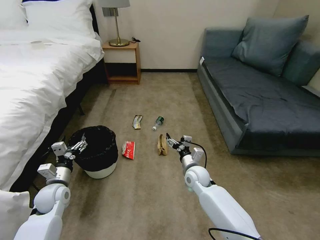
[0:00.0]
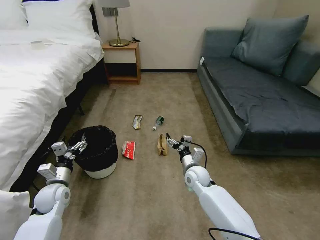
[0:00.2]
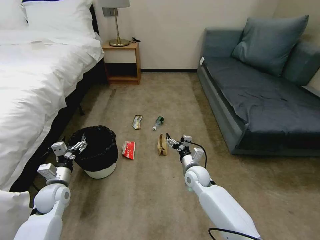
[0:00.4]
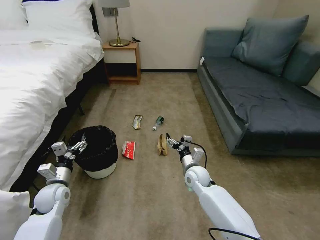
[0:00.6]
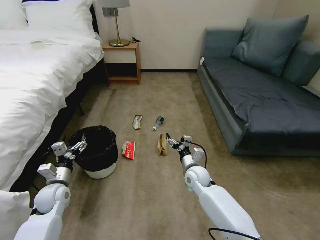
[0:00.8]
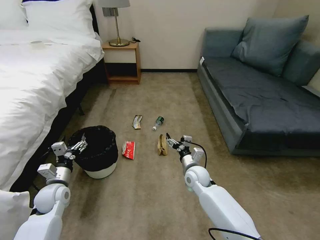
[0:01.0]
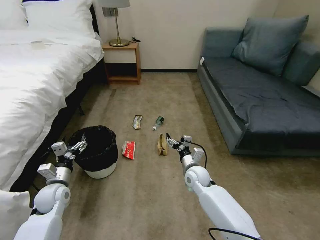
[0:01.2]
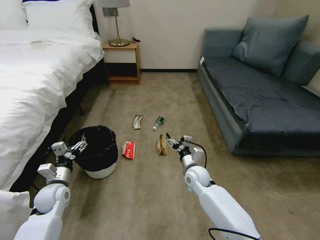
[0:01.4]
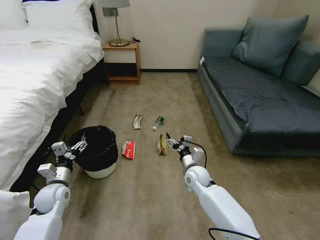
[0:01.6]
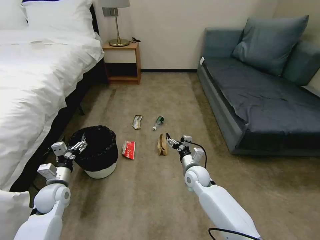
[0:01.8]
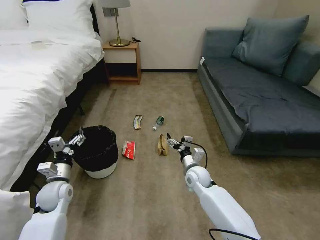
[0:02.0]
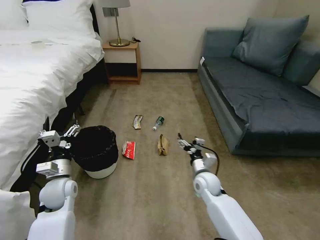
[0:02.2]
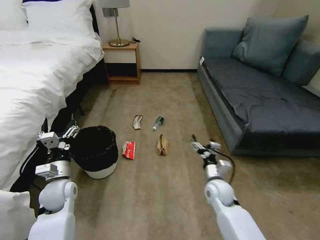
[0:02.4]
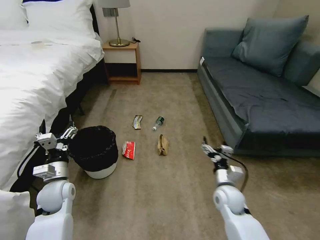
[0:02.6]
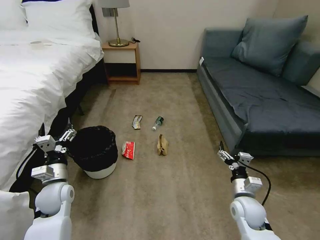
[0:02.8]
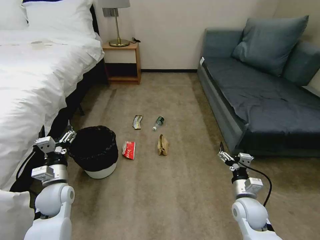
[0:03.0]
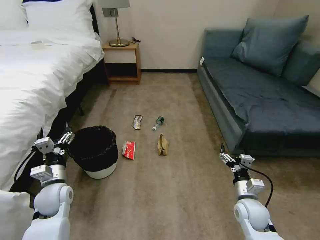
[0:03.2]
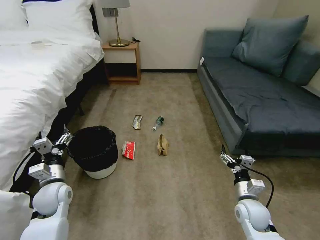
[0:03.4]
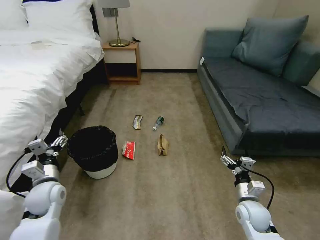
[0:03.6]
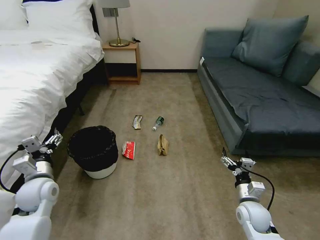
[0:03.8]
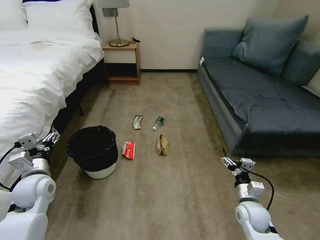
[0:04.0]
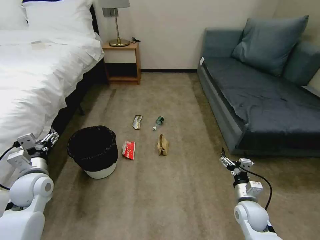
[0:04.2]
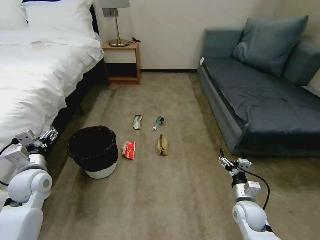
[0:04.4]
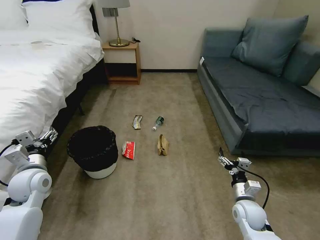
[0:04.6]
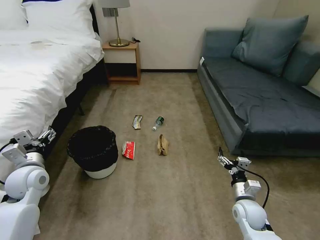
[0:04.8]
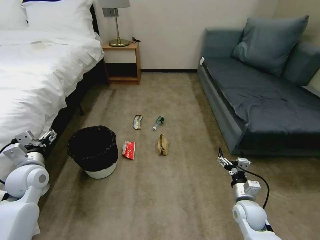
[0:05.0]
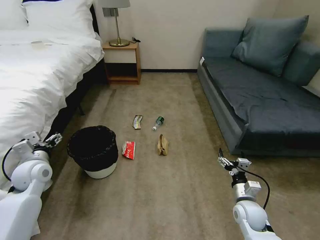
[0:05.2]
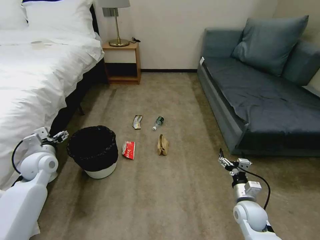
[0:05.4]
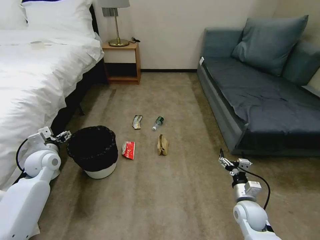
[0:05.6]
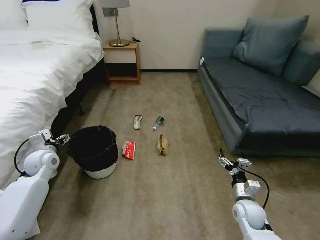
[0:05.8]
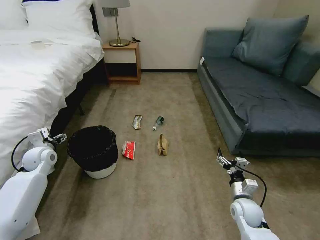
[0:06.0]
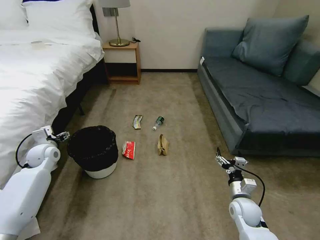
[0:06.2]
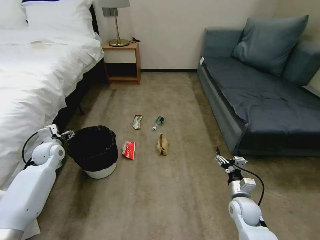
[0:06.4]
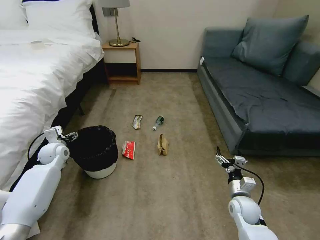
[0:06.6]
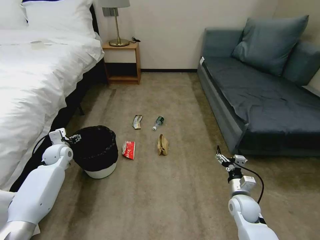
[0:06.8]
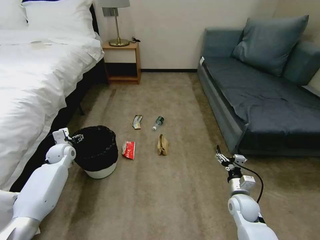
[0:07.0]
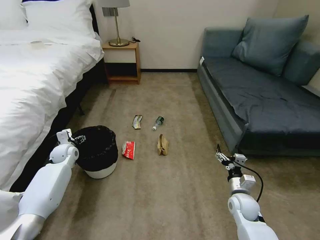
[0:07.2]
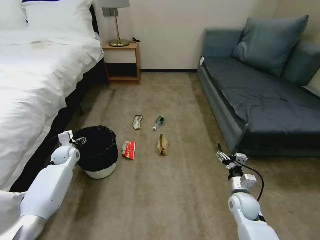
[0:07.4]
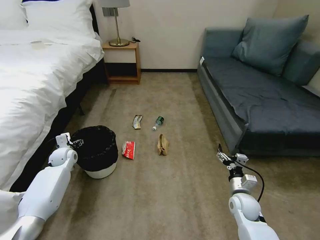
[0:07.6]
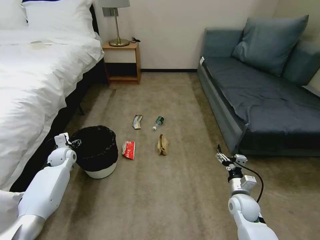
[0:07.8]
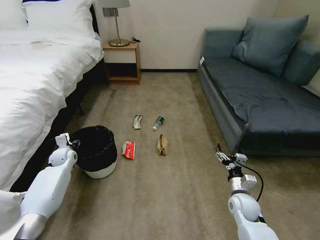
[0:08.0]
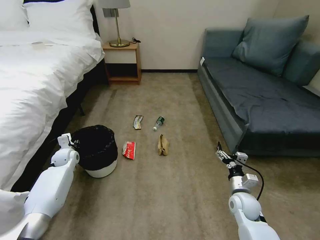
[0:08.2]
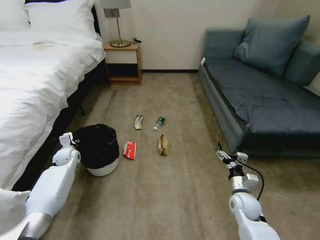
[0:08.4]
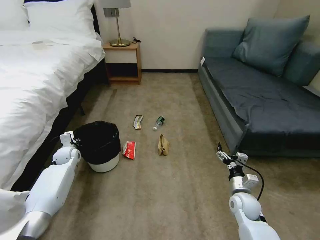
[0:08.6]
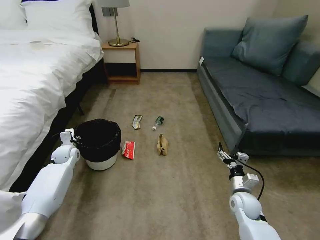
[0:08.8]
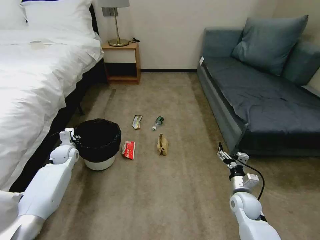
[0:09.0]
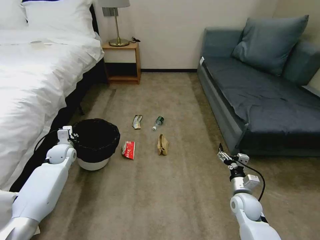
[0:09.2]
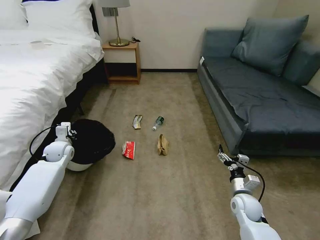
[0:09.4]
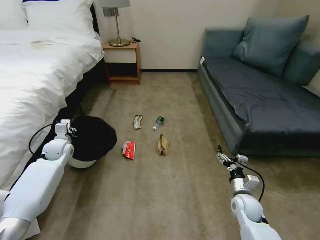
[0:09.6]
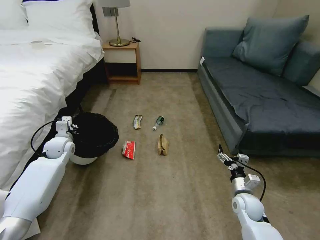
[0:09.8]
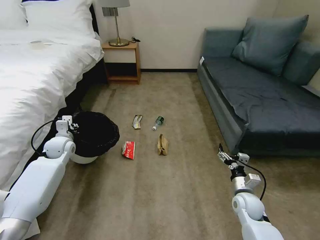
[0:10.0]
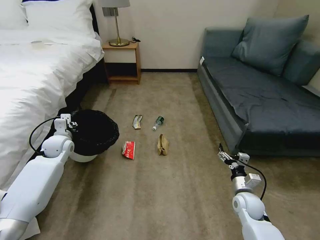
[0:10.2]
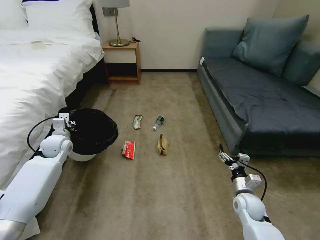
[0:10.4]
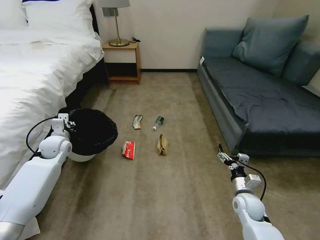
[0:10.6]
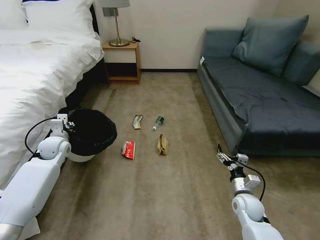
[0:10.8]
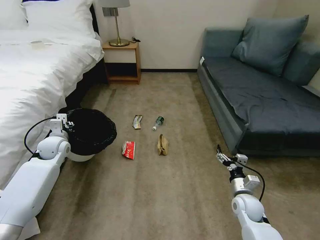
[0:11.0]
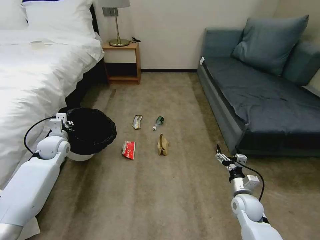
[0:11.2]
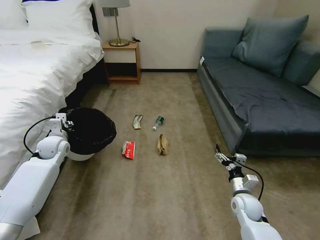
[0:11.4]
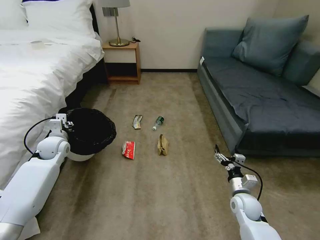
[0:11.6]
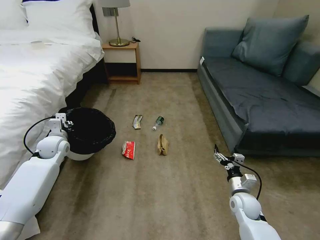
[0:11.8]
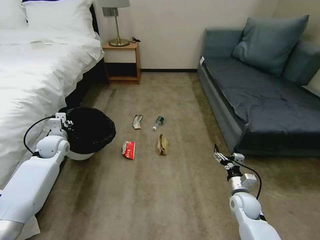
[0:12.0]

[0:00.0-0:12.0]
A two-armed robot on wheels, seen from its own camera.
Task of the whole recording: Pick up the trash bin, then pick up the garbage on the floor and place it into the trash bin.
0:01.6 to 0:03.0: The left gripper ends up approximately 5 cm from where it was. Meanwhile the right gripper is displaced to the right and backward by approximately 20 cm.
0:03.0 to 0:04.4: The left gripper moves upward and to the left, some 10 cm.
0:04.4 to 0:06.0: The left gripper is displaced forward by some 10 cm.
0:06.0 to 0:07.6: The left gripper shifts approximately 10 cm downward and forward.
0:07.6 to 0:09.0: The left gripper closes up.
0:09.0 to 0:10.4: The left gripper moves upward, roughly 10 cm.
0:10.4 to 0:12.0: Both grippers stay put.

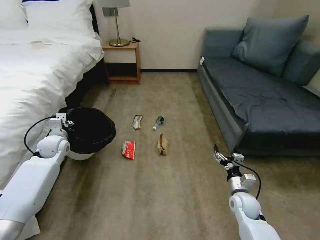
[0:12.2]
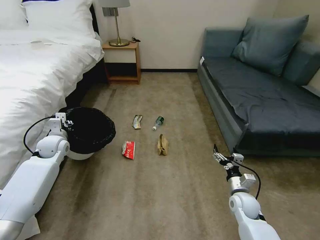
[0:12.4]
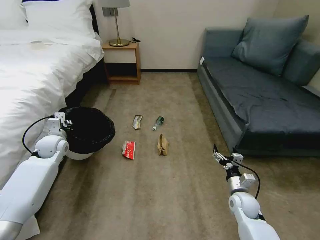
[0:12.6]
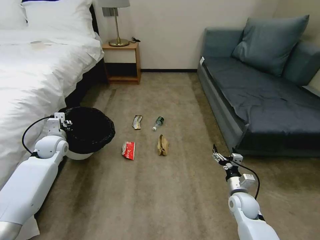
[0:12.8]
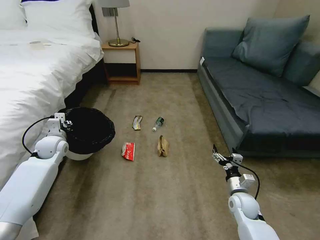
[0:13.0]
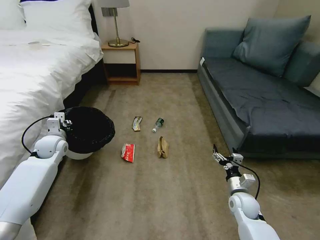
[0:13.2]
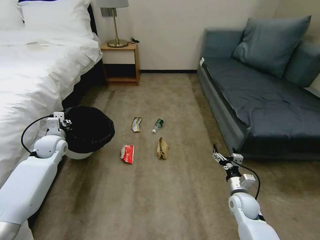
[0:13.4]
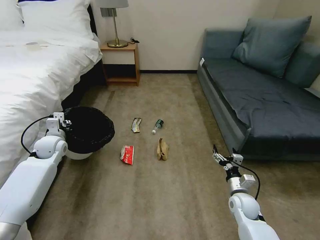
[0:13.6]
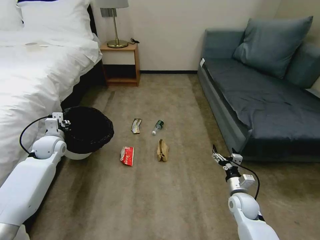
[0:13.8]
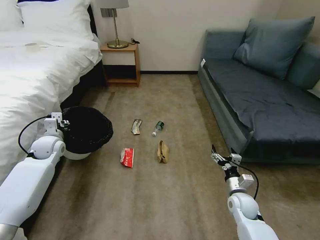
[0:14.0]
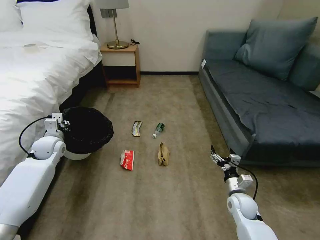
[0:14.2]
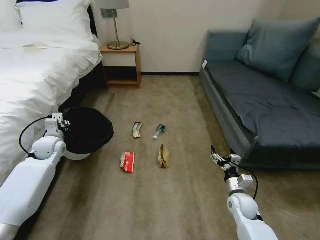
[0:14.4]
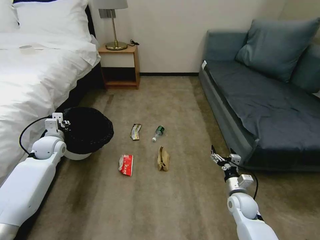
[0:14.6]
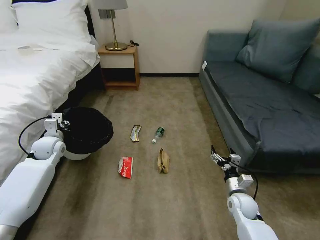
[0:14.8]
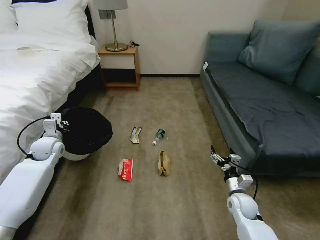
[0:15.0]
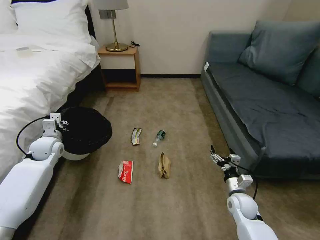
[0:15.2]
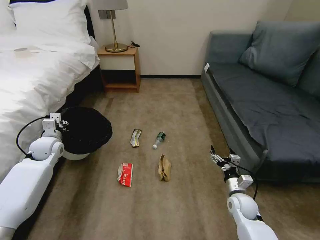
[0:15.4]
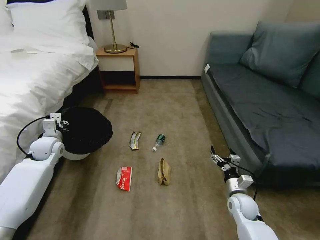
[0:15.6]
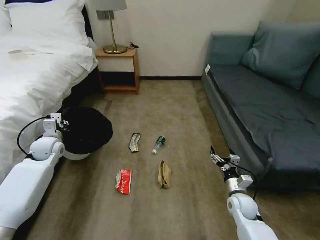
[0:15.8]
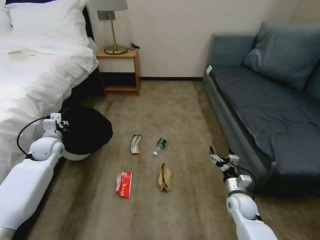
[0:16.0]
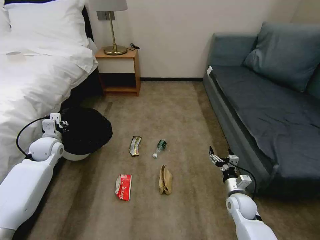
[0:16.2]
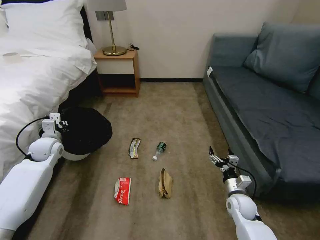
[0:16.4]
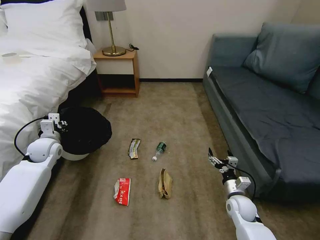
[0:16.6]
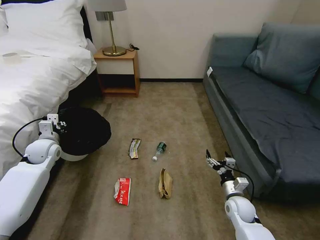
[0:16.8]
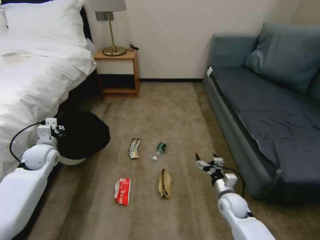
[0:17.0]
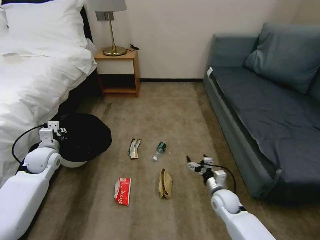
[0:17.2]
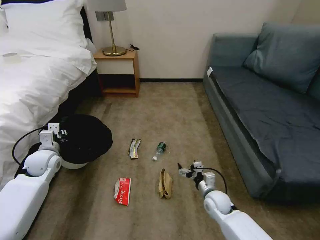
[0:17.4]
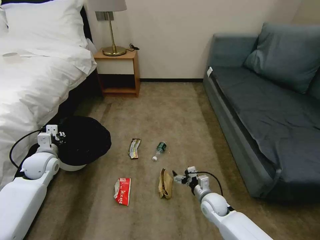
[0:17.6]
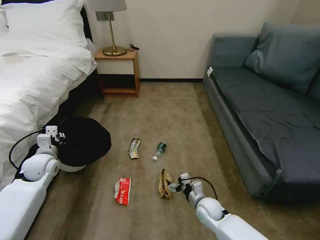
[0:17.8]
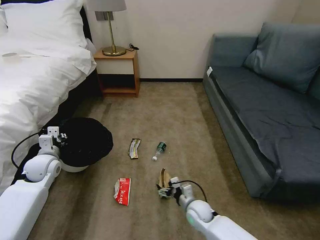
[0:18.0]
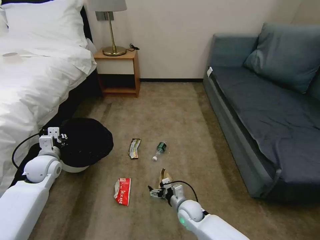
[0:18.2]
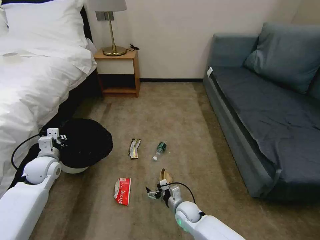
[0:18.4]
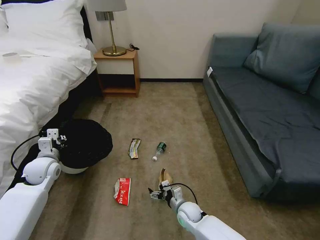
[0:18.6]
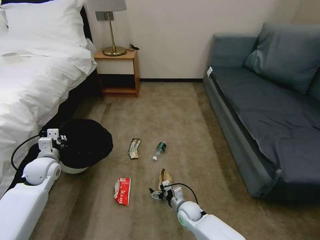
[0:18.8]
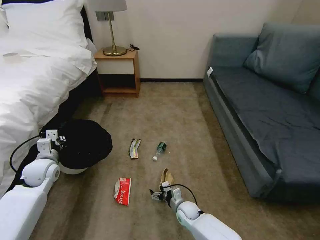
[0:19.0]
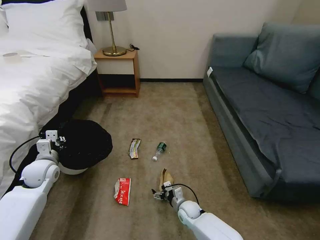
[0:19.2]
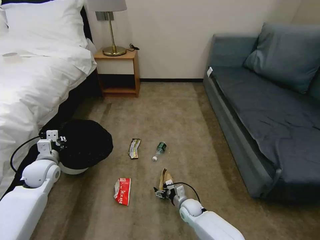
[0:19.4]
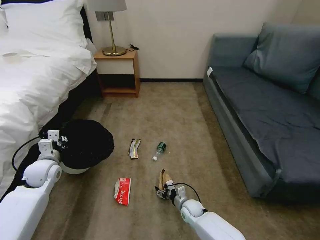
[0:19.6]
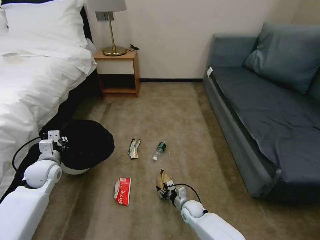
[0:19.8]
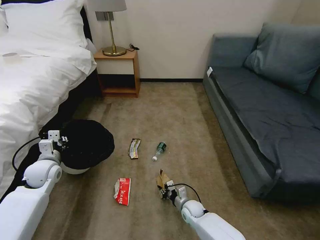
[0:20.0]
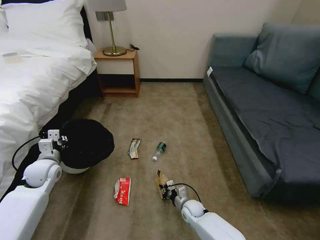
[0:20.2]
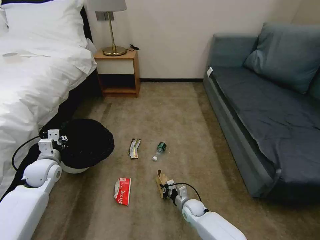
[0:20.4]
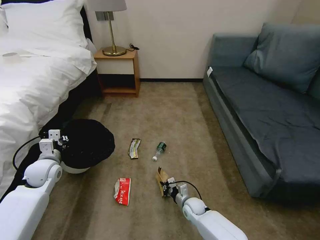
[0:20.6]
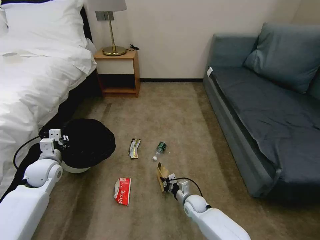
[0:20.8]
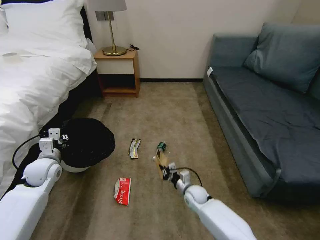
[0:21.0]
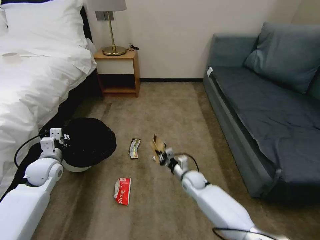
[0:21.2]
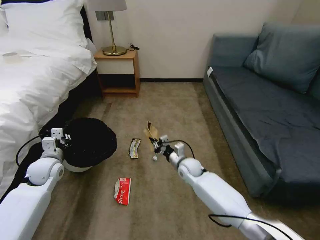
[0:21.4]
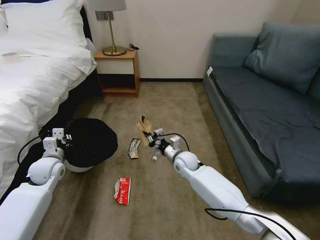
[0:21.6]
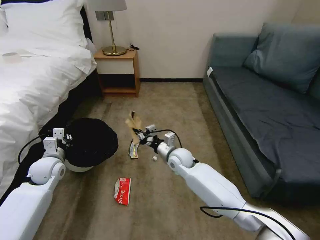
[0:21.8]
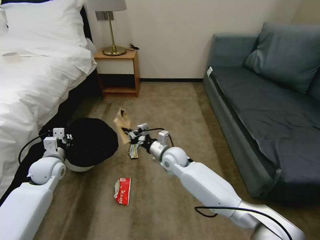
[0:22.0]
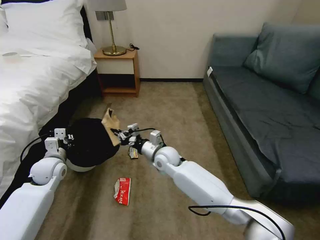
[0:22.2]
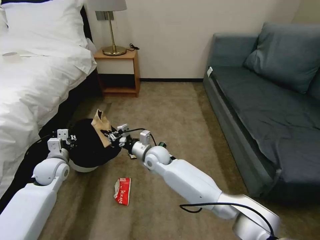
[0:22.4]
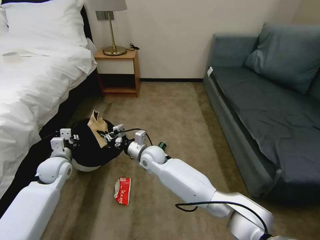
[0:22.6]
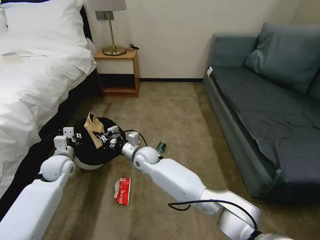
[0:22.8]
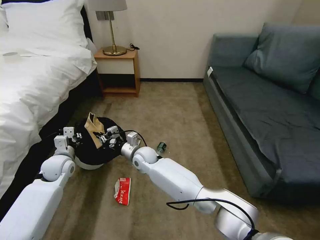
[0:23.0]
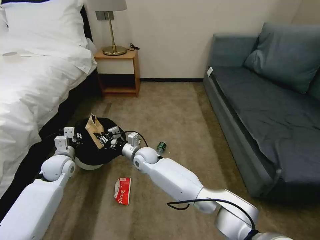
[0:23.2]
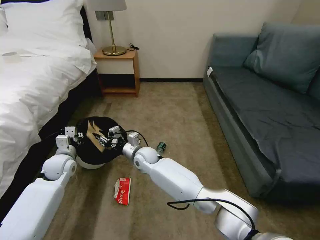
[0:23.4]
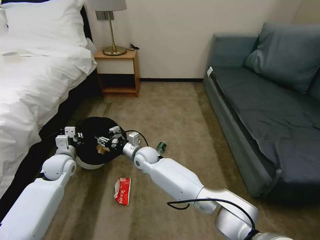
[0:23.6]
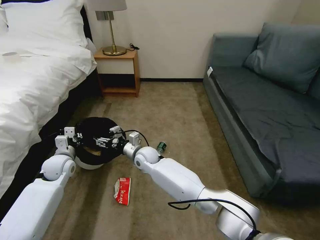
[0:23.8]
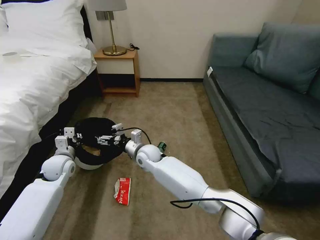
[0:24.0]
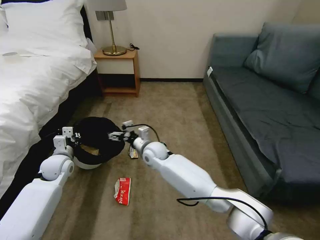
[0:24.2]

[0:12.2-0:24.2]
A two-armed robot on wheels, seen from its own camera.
Task of the whole recording: Pick up the trash bin, then pick up the garbage on the floor and place it into the trash bin.
0:12.2 to 0:13.8: Both grippers stay put.
0:13.8 to 0:15.2: Neither gripper changes place.
0:15.2 to 0:16.6: Neither gripper changes place.
0:16.6 to 0:18.2: The left gripper is displaced backward by approximately 5 cm, while the right gripper heads to the left, covering roughly 15 cm.
0:18.2 to 0:19.8: The right gripper shifts about 5 cm downward, and closes.
0:19.8 to 0:21.2: The right gripper goes about 10 cm upward and forward, and closes up.
0:21.2 to 0:22.6: The right gripper travels to the left and upward by approximately 25 cm.
0:22.6 to 0:24.2: The right gripper opens up.
